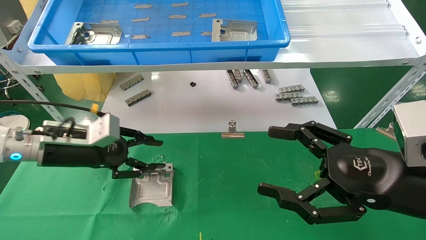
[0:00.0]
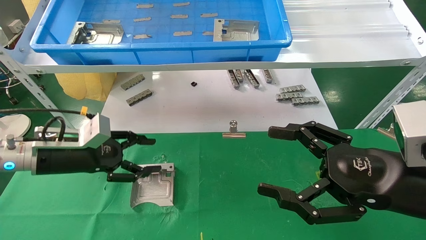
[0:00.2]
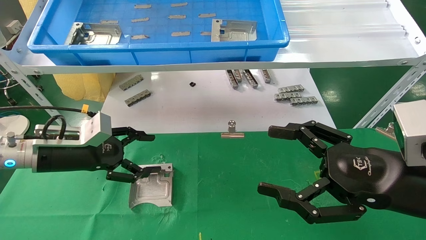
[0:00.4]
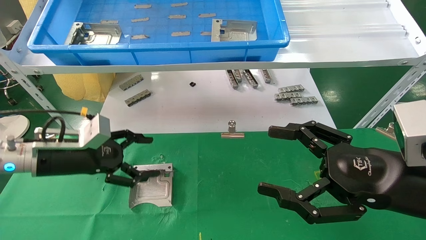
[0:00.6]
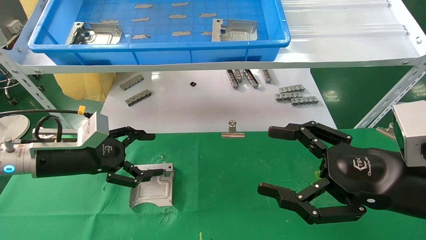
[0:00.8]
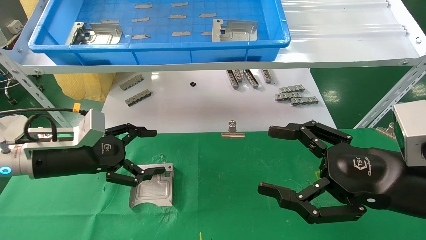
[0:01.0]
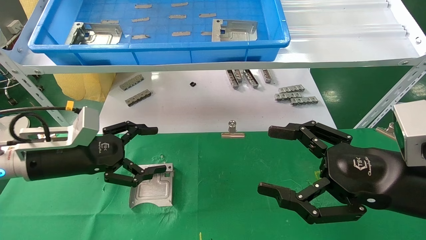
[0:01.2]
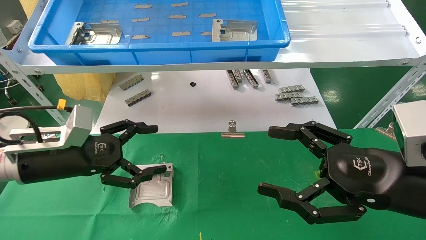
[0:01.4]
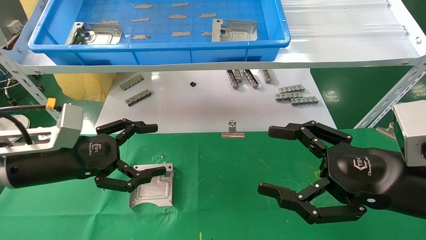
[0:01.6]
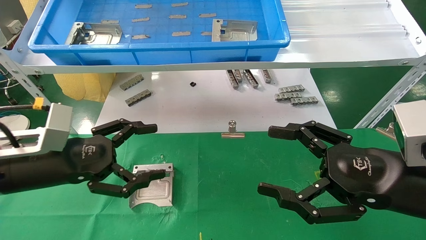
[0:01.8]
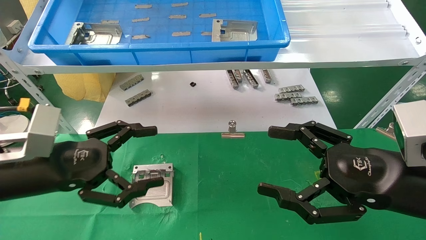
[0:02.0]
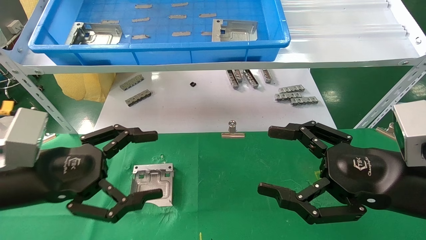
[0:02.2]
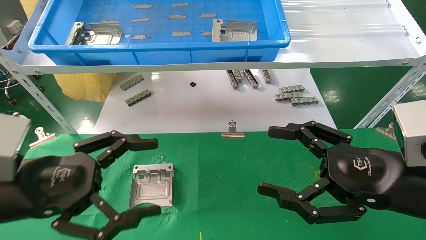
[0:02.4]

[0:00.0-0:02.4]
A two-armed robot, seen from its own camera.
Task of the whole recording: use the mechanical arm to pick up the parts and place them on the table.
0:00.0 to 0:01.2: The left gripper opens its fingers.
0:01.2 to 0:02.4: The left gripper goes approximately 10 cm backward.

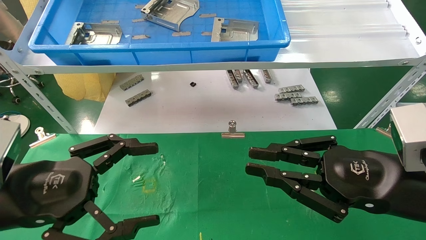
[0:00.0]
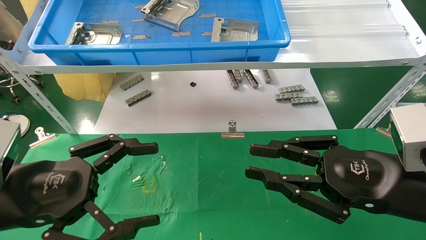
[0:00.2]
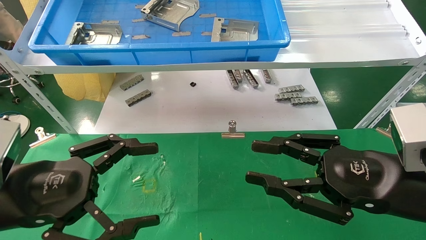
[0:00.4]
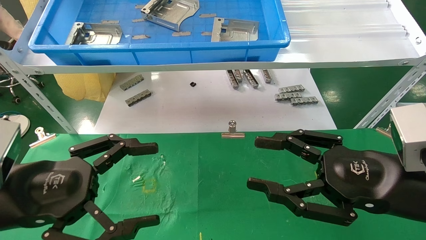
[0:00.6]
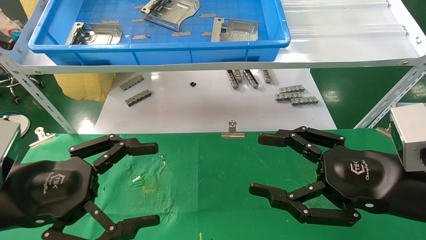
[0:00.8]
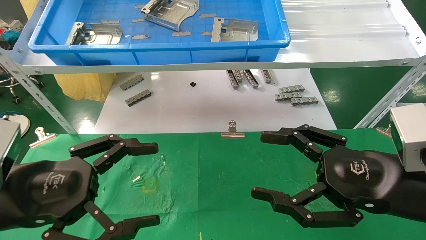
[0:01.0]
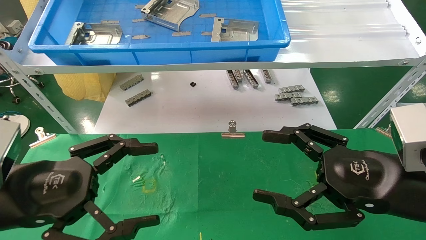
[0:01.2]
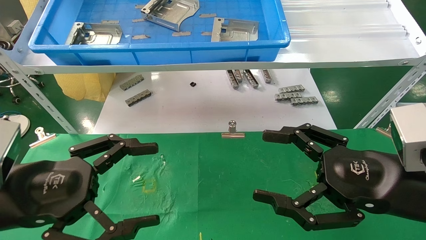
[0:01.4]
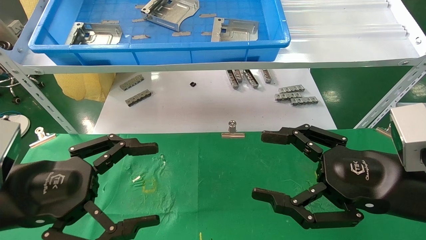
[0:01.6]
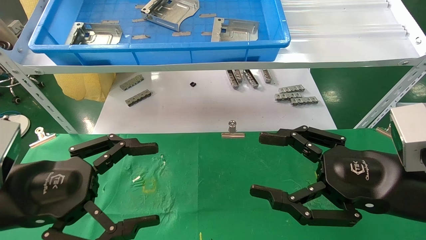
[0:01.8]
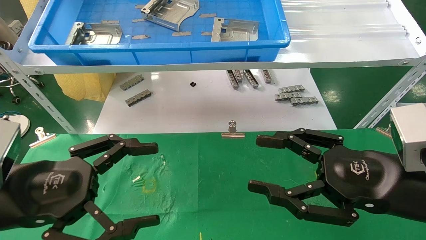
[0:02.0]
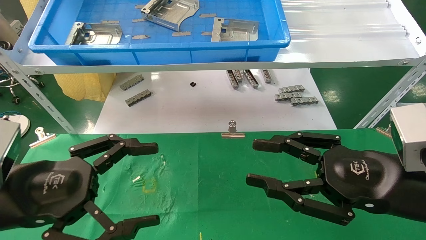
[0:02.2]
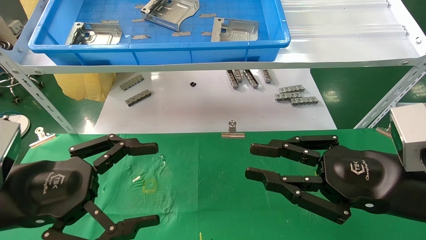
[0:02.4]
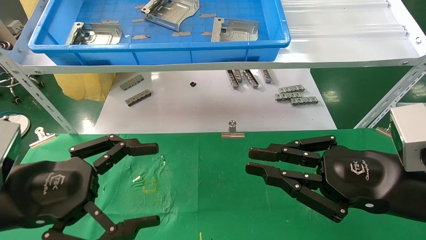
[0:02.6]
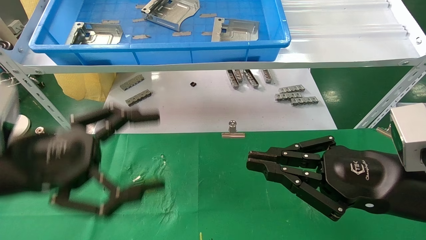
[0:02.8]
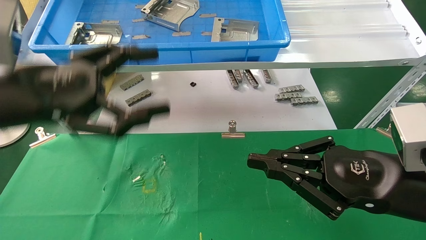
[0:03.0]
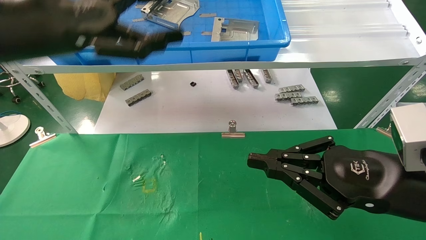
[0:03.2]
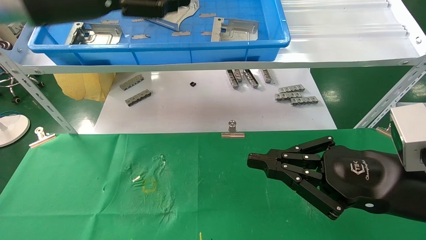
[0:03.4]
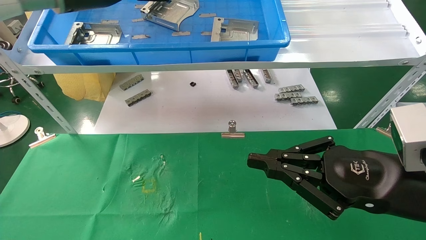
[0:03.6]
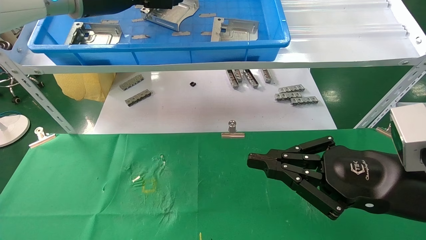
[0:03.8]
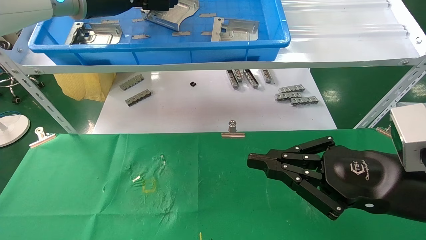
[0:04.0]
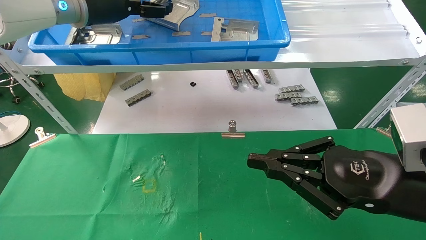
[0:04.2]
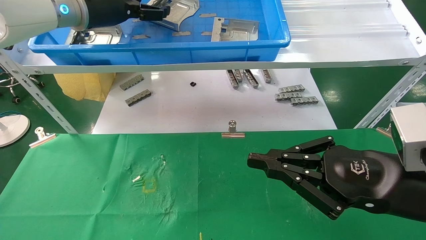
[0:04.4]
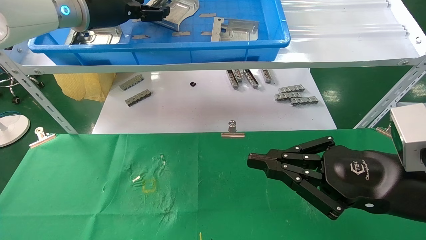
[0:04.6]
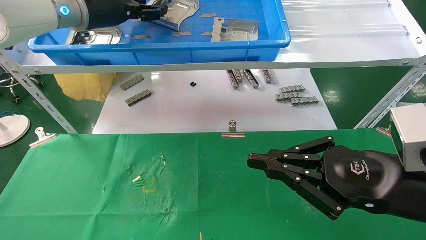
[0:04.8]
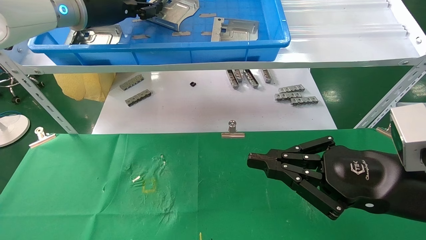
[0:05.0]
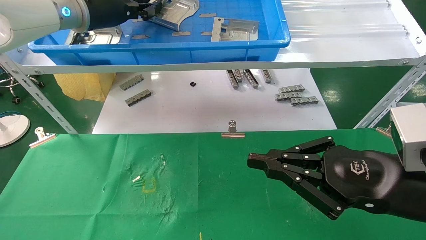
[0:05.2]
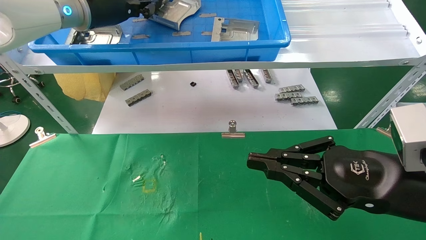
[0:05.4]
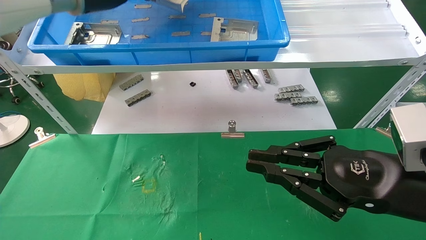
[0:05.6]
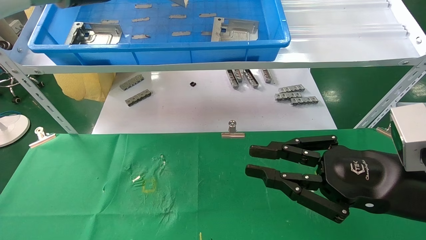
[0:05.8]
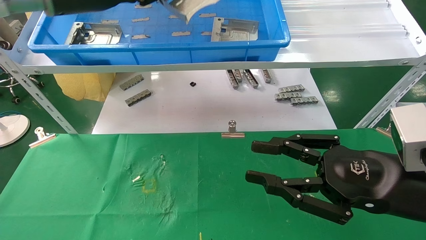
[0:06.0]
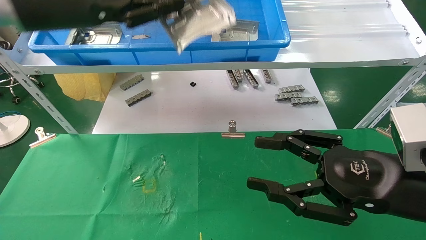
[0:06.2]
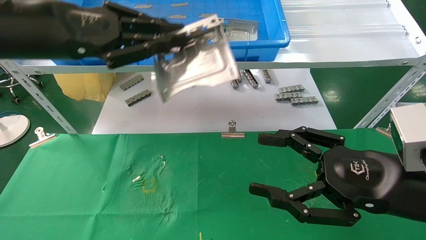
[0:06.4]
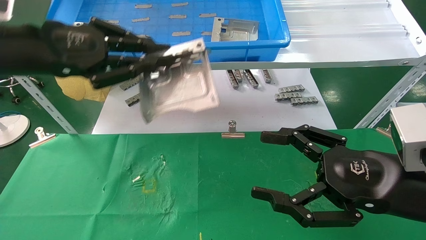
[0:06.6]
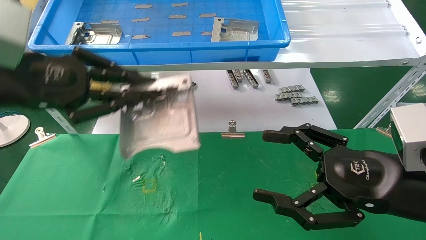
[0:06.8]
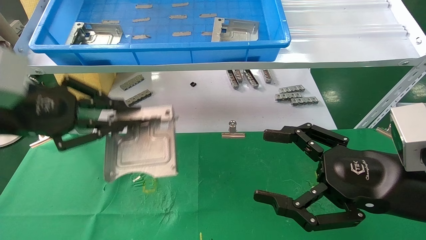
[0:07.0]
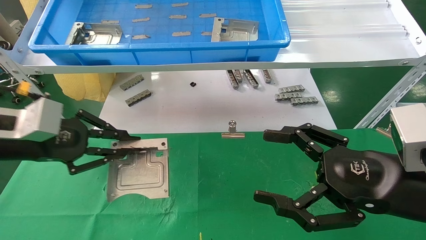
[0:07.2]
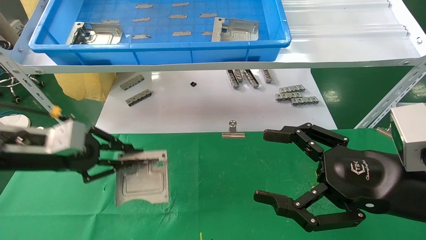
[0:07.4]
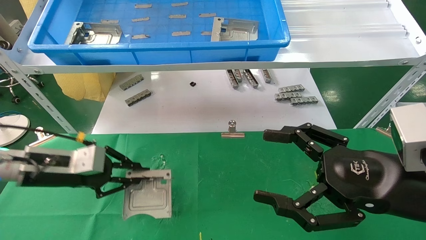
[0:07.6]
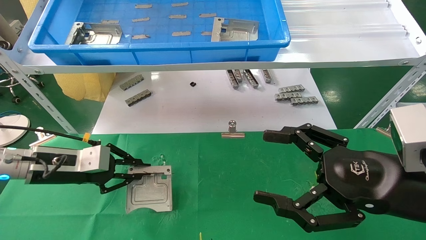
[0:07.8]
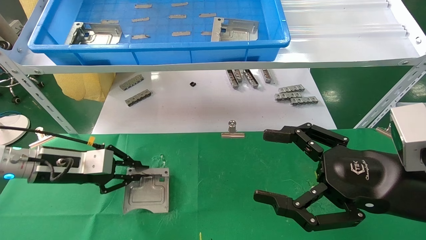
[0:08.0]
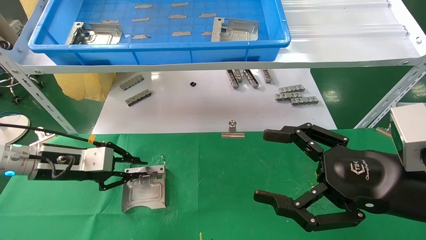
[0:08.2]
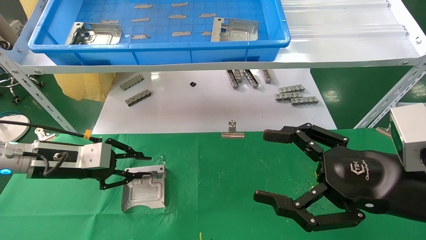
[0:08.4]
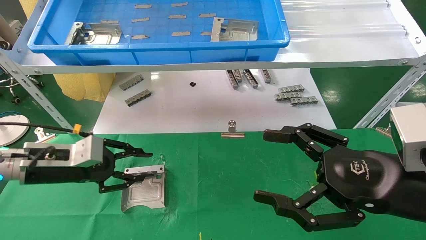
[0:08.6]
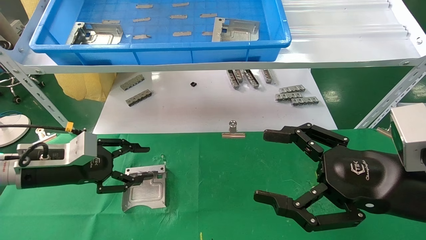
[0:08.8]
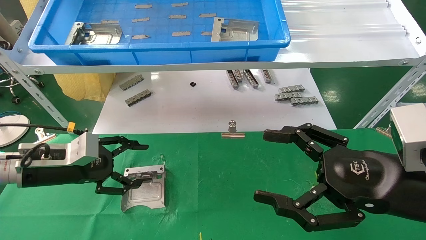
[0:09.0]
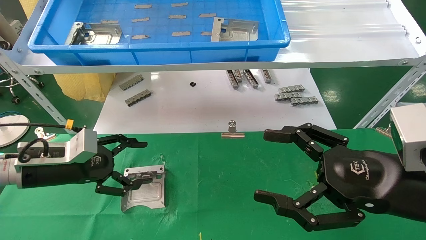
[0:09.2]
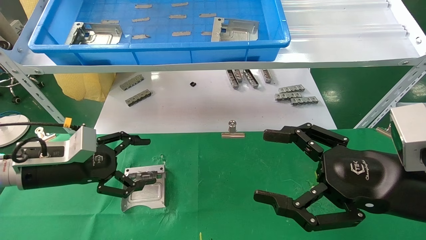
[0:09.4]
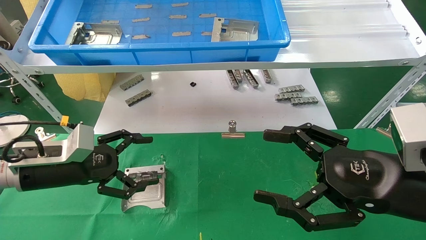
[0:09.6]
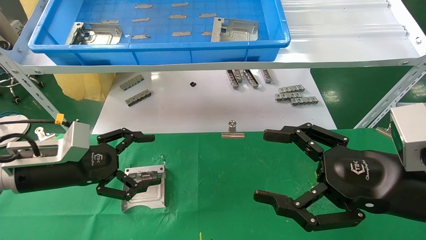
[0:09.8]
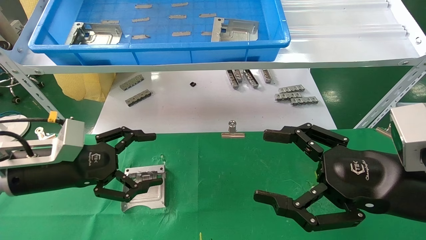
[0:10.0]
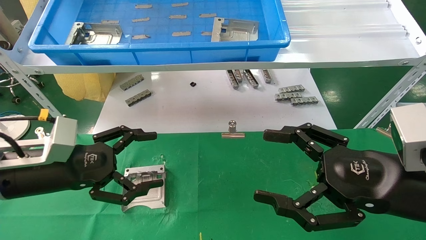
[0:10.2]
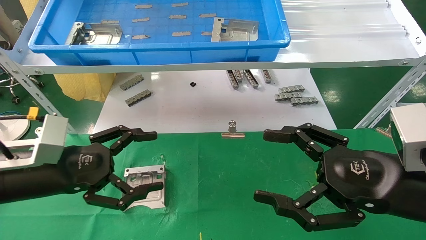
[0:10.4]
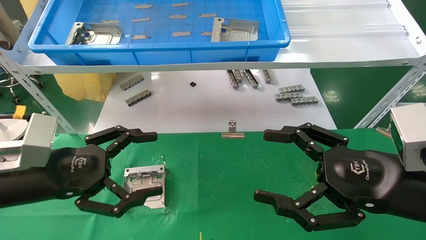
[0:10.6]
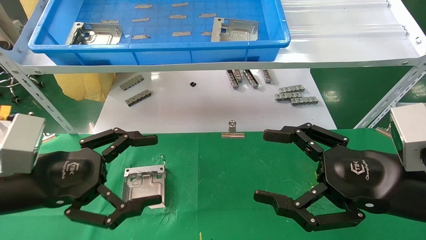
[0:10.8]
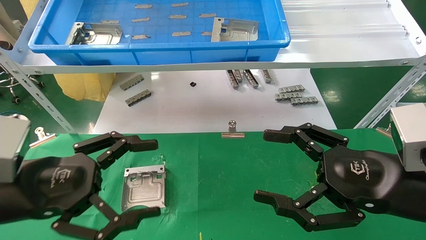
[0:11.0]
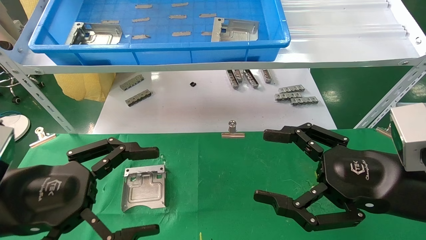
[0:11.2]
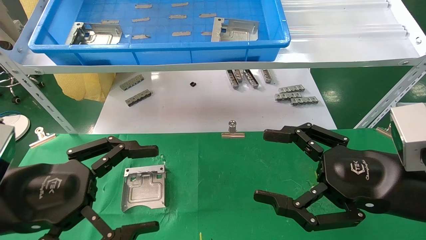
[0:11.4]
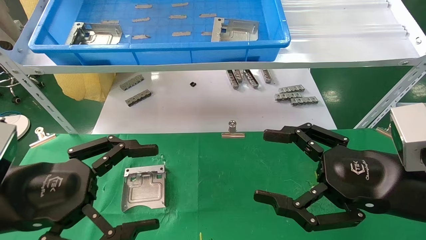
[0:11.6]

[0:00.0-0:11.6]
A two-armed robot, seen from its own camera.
Task of the whole recording: use the mechanical arm to pick up the parts and place them on the table.
Step, 0:01.8 to 0:06.0: Pick up the hard drive bracket from the feeding area.
Step, 0:06.2 to 0:08.8: Place the hard drive bracket into the box.
0:00.0 to 0:01.4: The right gripper opens its fingers.
0:01.4 to 0:02.8: The left gripper goes some 5 cm upward. The right gripper closes.
0:02.8 to 0:04.4: The left gripper travels forward and upward by about 30 cm.
0:04.4 to 0:05.8: The left gripper closes up.
0:05.8 to 0:07.2: The left gripper goes some 25 cm downward, to the left and backward; the right gripper opens up.
0:07.2 to 0:08.8: The left gripper goes some 10 cm downward and forward, and opens.
0:08.8 to 0:10.2: The left gripper travels backward by roughly 5 cm, and opens up.
0:10.2 to 0:11.6: The left gripper shifts some 10 cm backward.

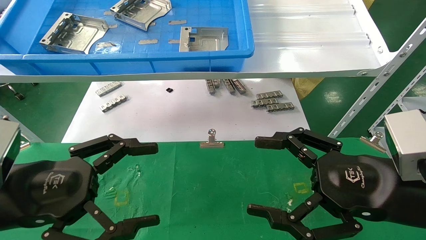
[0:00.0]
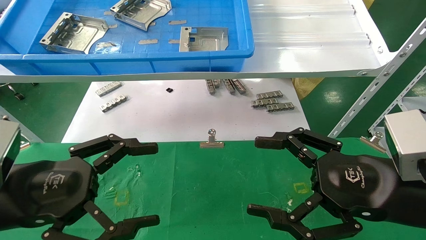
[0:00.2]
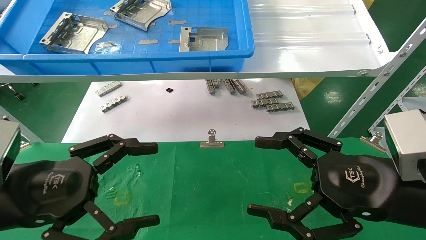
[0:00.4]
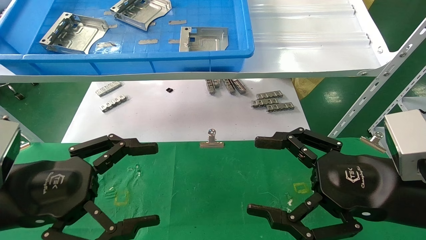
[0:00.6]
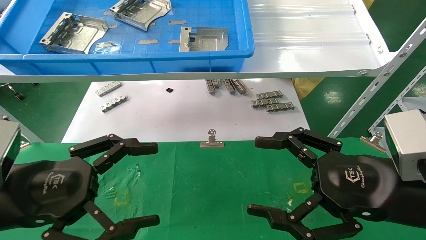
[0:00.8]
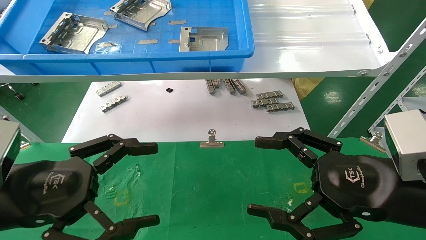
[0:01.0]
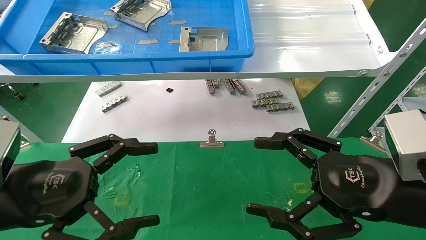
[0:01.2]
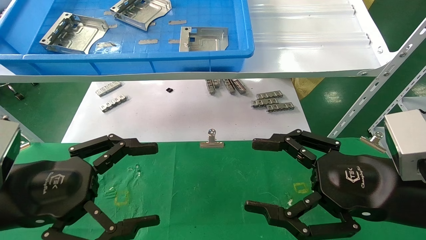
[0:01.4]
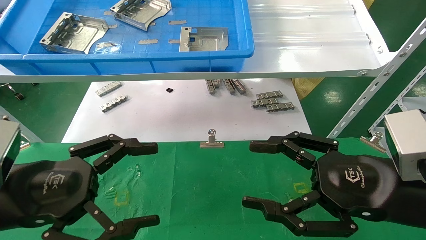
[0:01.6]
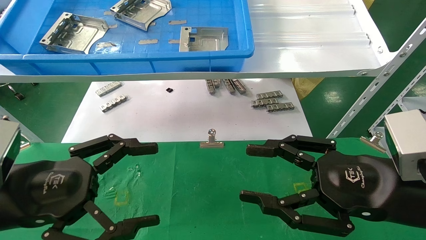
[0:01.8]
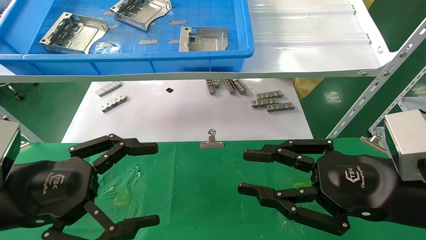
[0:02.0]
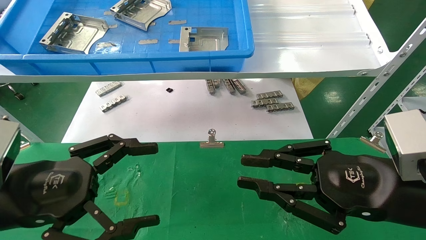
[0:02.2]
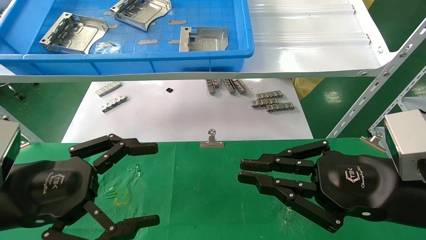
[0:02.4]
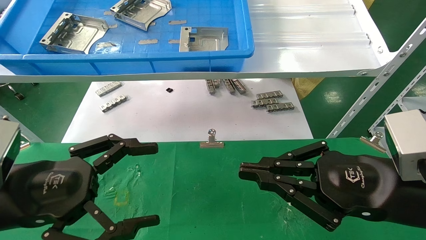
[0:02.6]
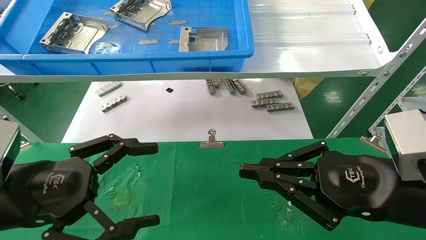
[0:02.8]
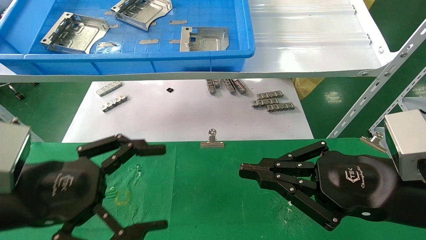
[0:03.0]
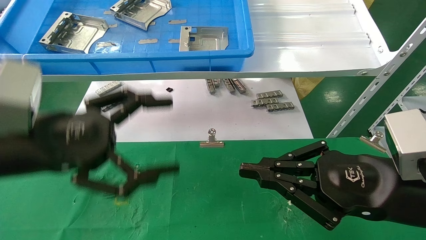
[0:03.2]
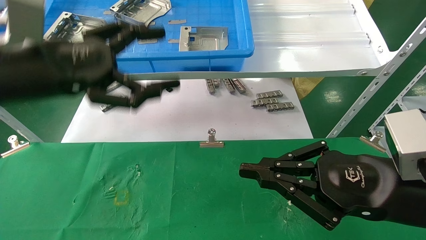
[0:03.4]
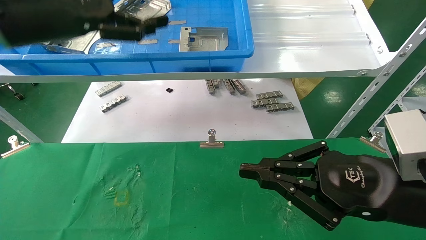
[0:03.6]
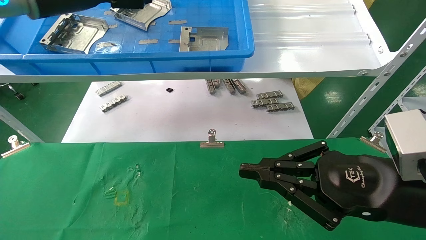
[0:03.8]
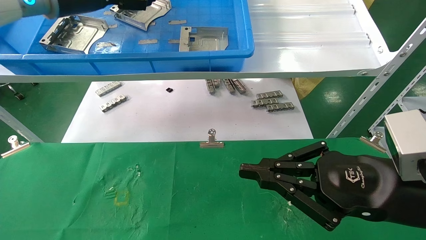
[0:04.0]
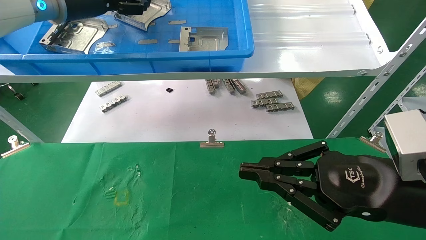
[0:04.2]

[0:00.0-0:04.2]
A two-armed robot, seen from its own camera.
Task of the whole recording: use the mechanical arm to pick up the parts and place them on the table.
0:00.0 to 0:01.4: The two grippers keep their place.
0:01.4 to 0:02.8: The right gripper closes its fingers.
0:02.8 to 0:04.2: The left gripper shifts roughly 35 cm upward and forward.
